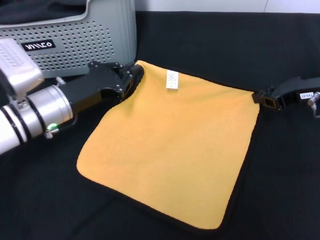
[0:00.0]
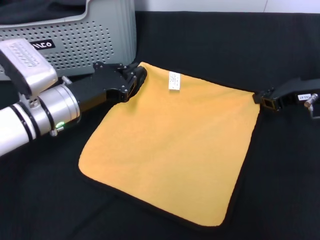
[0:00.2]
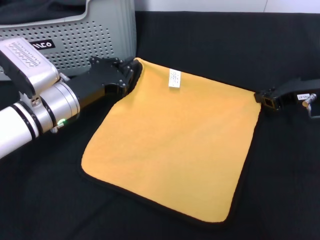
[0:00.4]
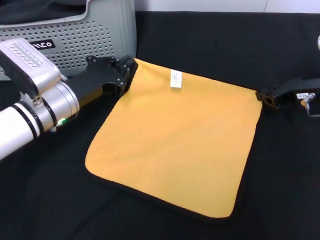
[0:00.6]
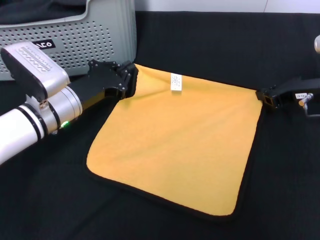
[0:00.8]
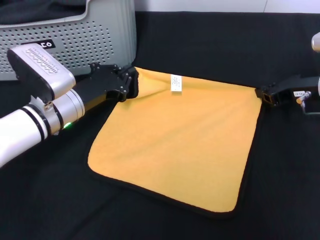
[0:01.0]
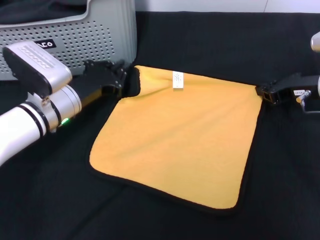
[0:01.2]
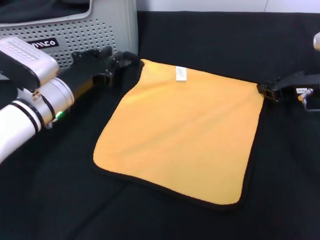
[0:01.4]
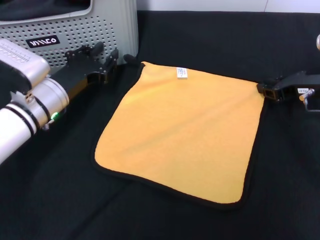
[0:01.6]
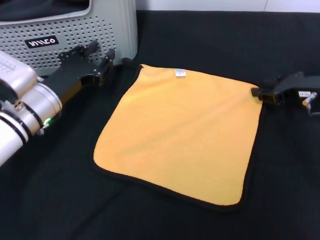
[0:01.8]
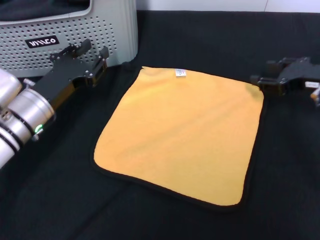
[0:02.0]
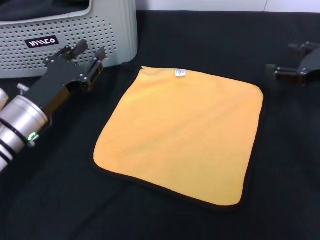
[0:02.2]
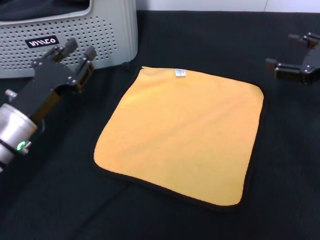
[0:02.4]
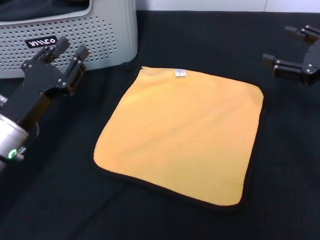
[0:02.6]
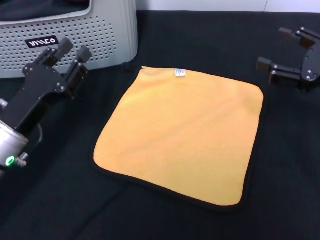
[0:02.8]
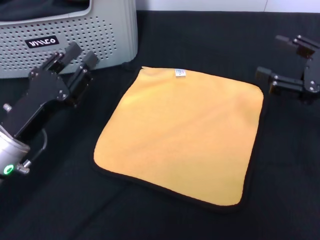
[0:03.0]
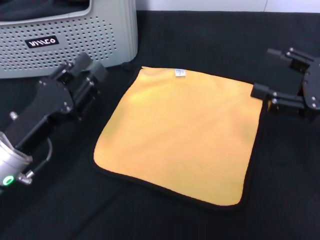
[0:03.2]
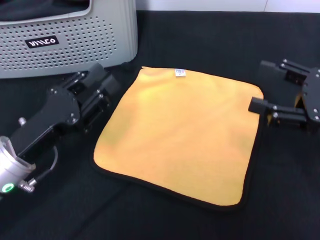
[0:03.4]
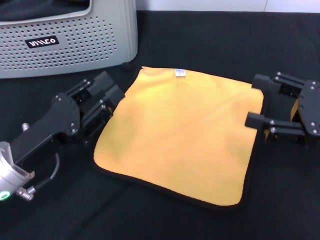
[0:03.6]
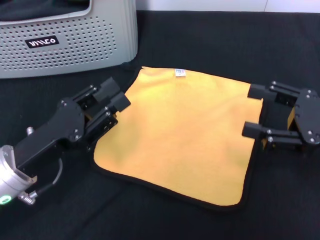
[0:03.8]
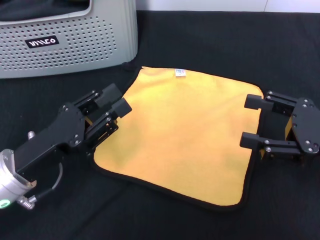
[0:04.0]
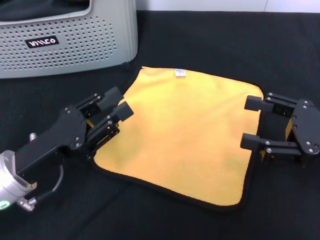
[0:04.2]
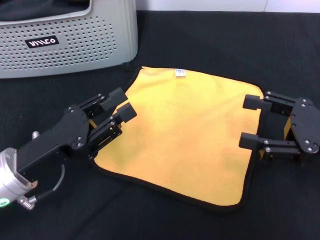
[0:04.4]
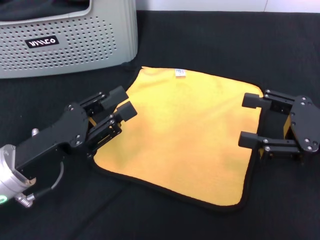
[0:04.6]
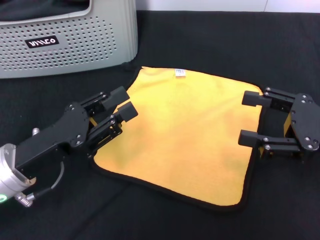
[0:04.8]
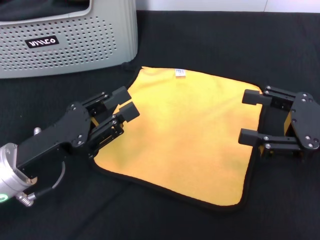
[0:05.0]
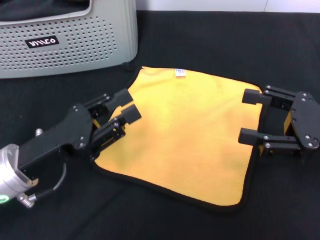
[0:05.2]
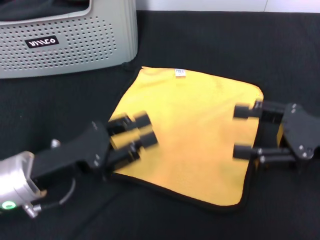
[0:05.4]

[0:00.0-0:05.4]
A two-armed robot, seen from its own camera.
Task of the whole recording: pick up the towel from the storage box and lay it flat on the black tablecloth.
0:01.4 to 0:02.8: The right gripper travels backward and upward by some 10 cm, and opens up. Meanwhile the left gripper moves backward, roughly 10 cm, and opens its fingers.
0:02.8 to 0:04.0: The right gripper shifts approximately 5 cm backward.
0:04.0 to 0:05.4: The grippers move only a little.
